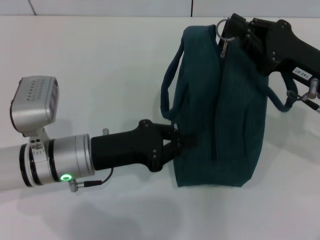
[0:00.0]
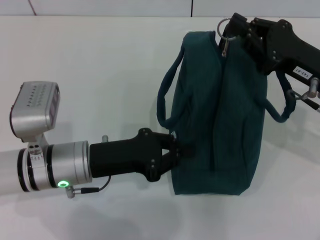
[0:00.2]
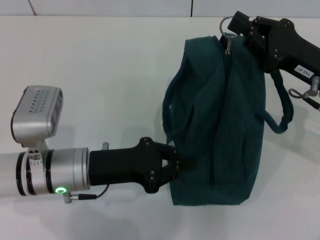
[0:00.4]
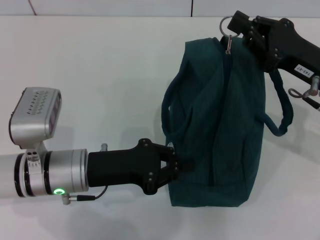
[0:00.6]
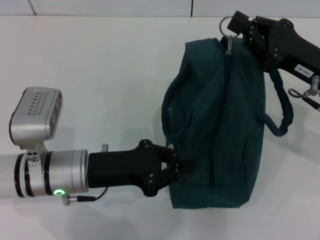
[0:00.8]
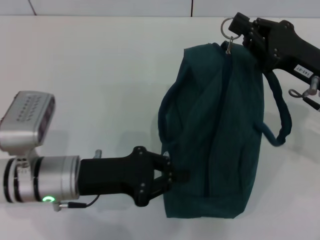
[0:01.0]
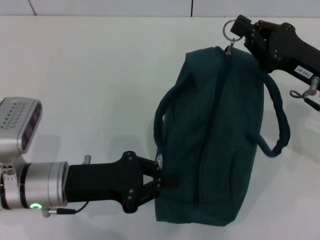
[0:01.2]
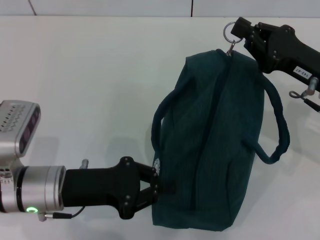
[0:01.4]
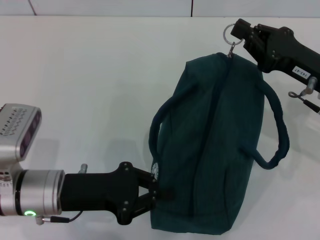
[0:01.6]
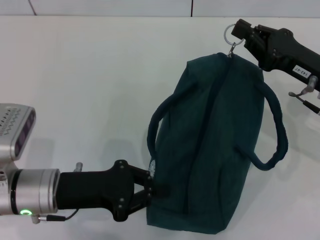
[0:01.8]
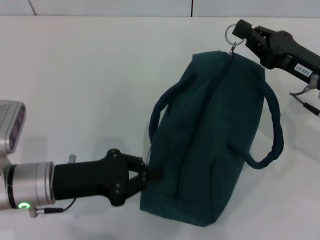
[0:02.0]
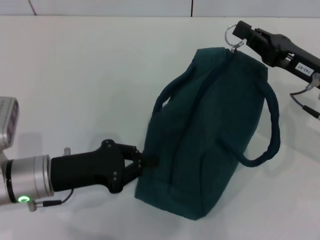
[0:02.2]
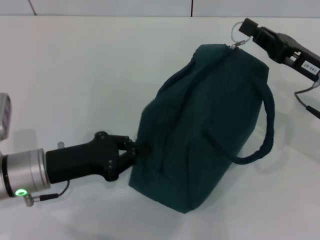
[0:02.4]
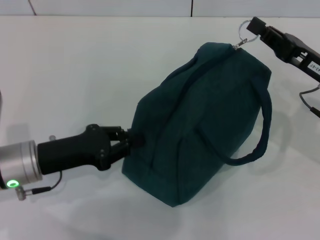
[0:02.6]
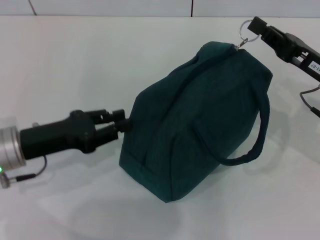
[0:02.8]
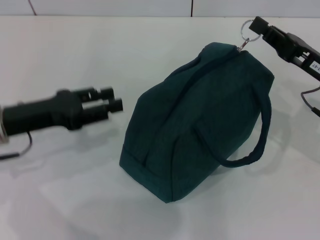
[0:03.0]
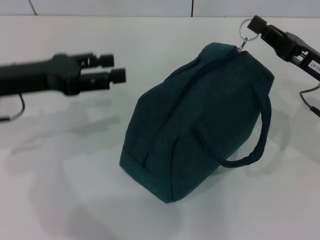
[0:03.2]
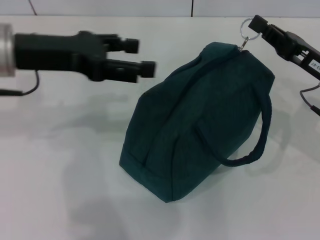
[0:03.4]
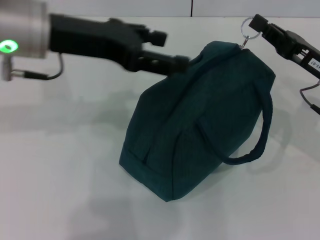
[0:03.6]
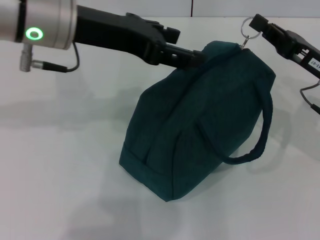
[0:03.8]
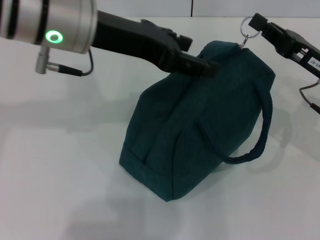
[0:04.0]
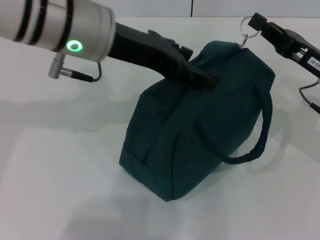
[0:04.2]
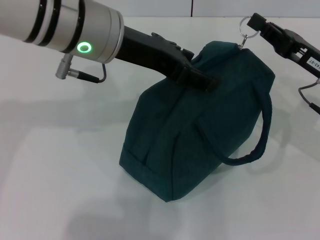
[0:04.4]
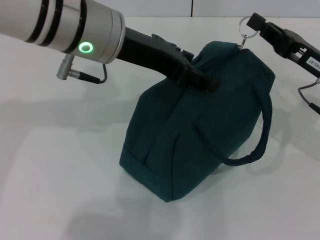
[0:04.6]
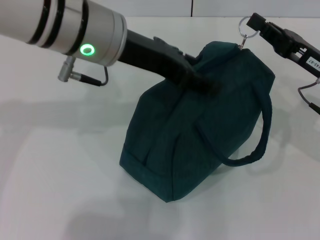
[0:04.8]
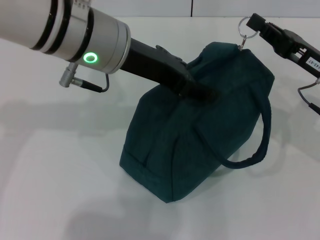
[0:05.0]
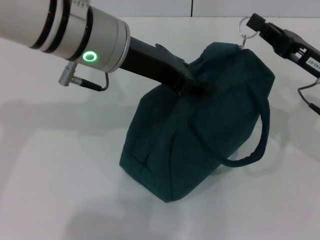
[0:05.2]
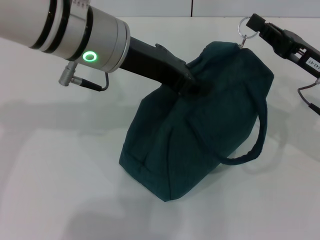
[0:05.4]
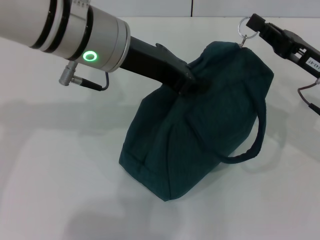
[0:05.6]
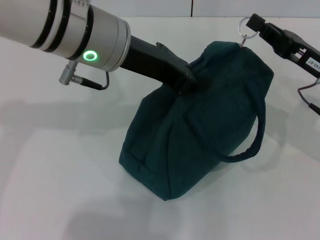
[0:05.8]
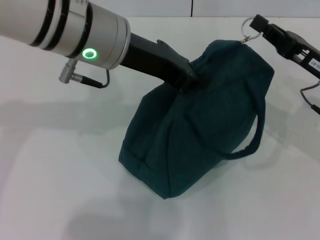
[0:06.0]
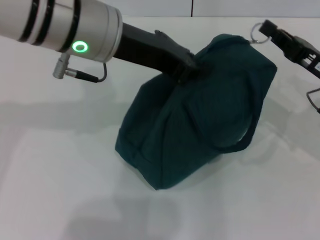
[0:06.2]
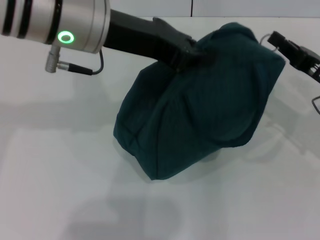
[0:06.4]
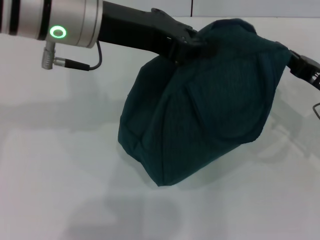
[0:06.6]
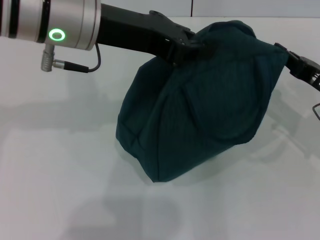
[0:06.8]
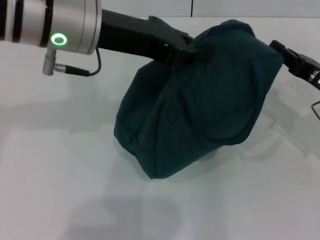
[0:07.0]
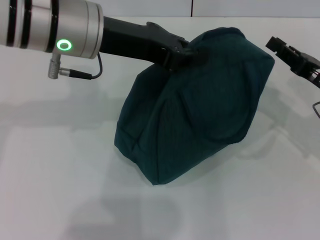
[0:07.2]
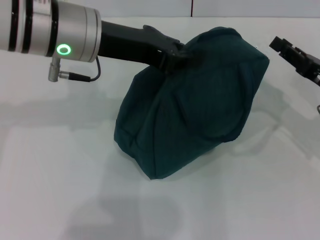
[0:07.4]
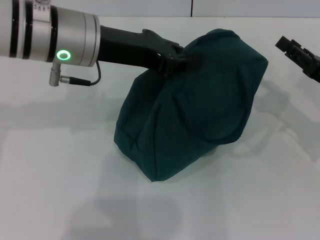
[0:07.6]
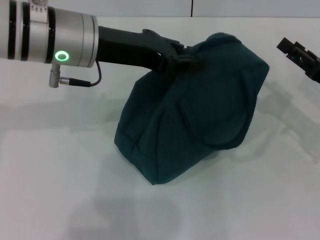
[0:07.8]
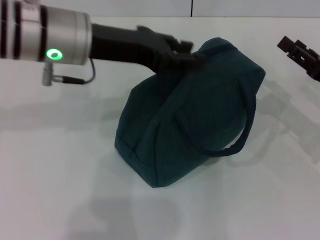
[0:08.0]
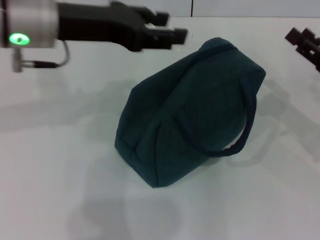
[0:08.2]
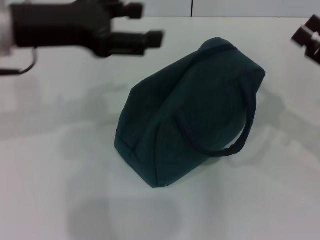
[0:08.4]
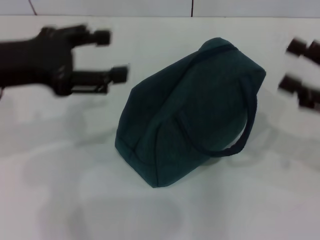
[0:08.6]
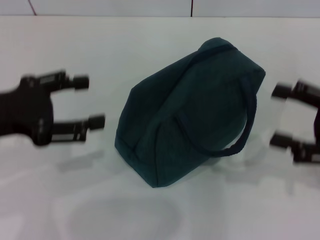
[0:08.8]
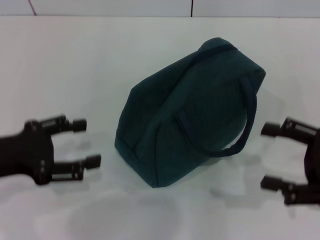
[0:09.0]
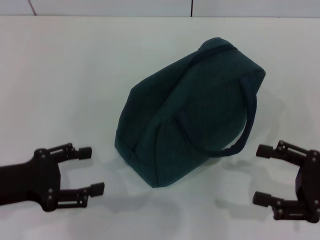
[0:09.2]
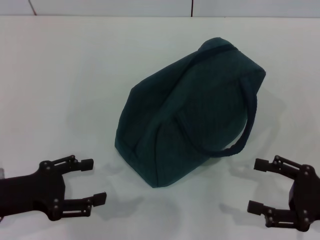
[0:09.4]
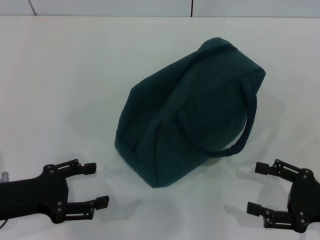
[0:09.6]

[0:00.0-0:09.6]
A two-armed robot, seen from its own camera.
Step, 0:00.0 to 0:07.0: Zip up the lunch bag with your right hand.
Step, 0:07.2 to 0:08.0: Hold the lunch bag with your left hand.
0:00.0 to 0:01.6: The left gripper shifts by approximately 5 cm.
0:01.6 to 0:03.2: The left gripper moves upward, forward and to the left, about 15 cm, and opens.
0:03.2 to 0:04.8: The left gripper goes some 15 cm to the right and upward.
0:04.8 to 0:06.4: The left gripper closes its fingers.
0:06.4 to 0:08.0: The right gripper opens. Meanwhile the left gripper changes place by roughly 5 cm.
0:08.0 to 0:09.6: The left gripper moves downward, backward and to the left, some 25 cm, and opens. Meanwhile the right gripper shifts about 10 cm backward.

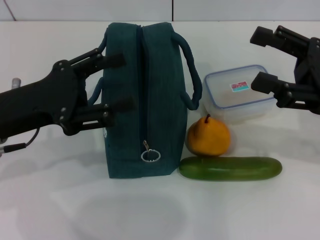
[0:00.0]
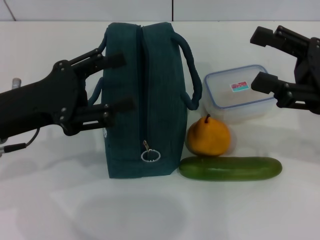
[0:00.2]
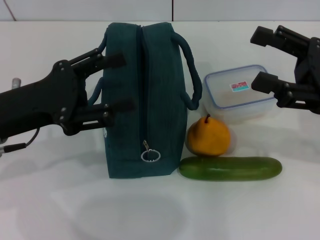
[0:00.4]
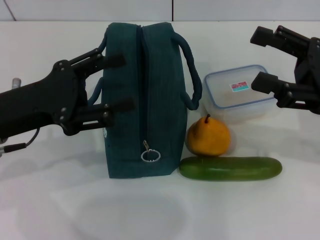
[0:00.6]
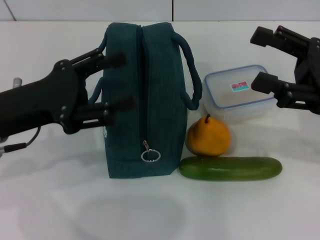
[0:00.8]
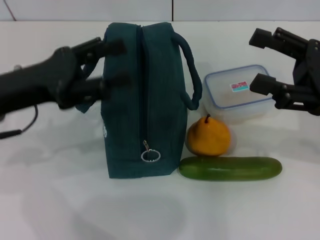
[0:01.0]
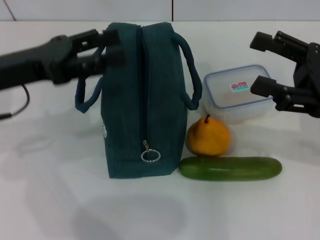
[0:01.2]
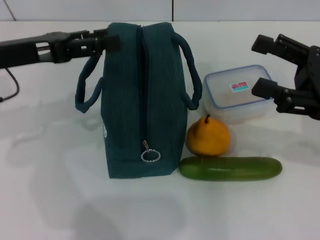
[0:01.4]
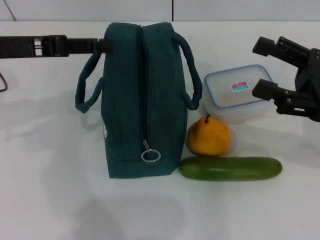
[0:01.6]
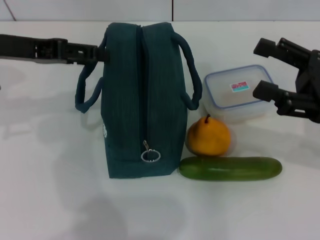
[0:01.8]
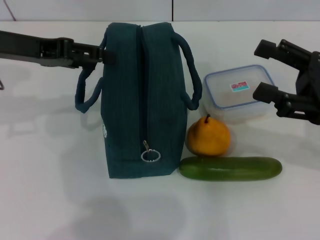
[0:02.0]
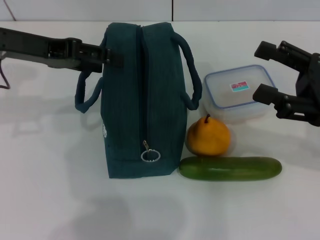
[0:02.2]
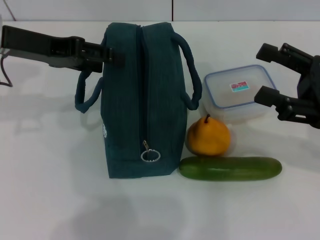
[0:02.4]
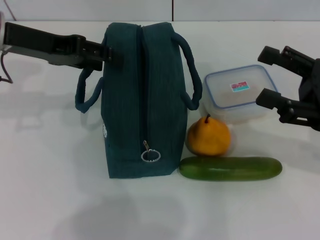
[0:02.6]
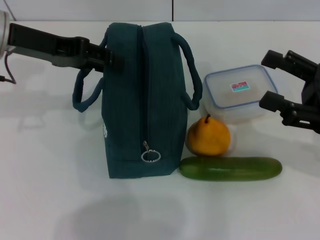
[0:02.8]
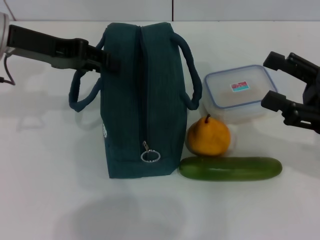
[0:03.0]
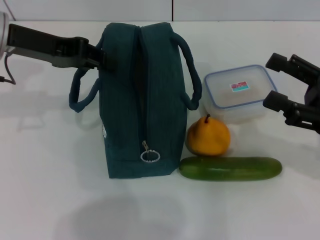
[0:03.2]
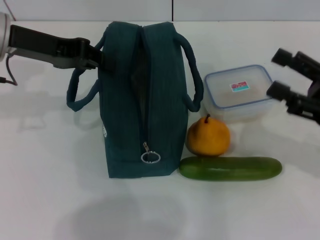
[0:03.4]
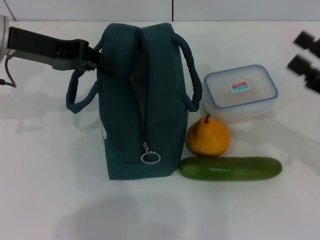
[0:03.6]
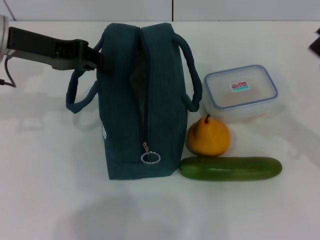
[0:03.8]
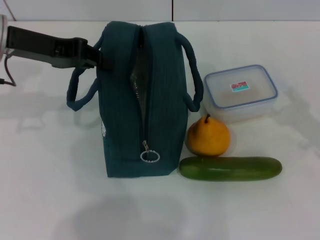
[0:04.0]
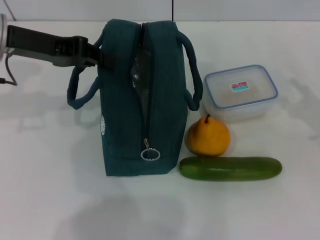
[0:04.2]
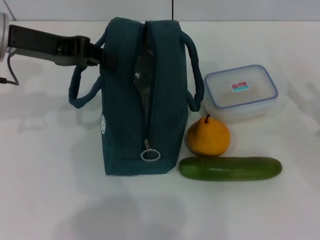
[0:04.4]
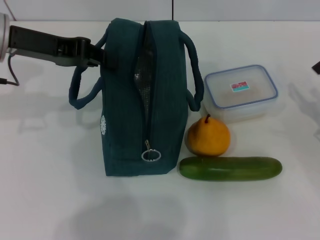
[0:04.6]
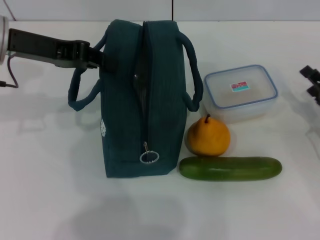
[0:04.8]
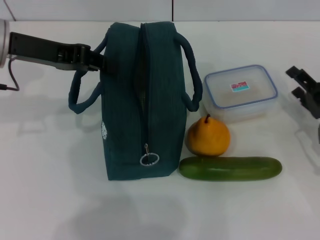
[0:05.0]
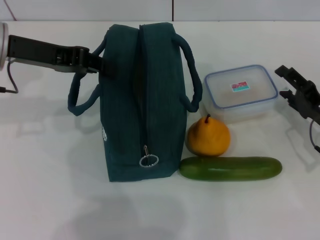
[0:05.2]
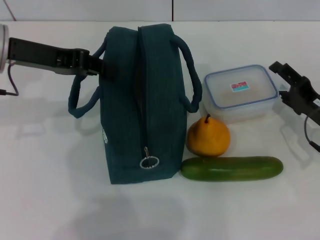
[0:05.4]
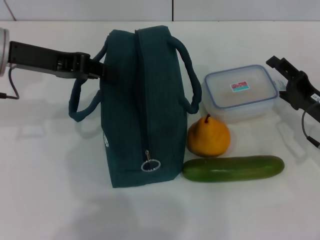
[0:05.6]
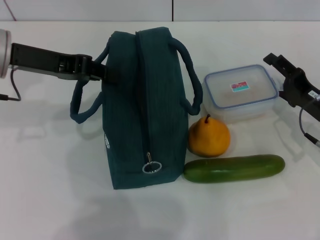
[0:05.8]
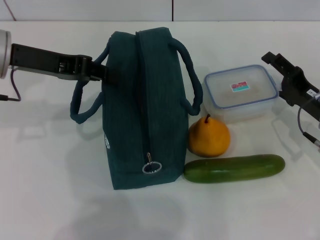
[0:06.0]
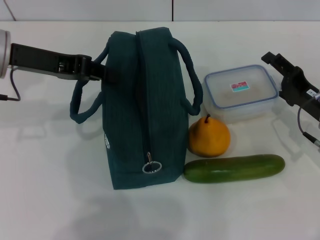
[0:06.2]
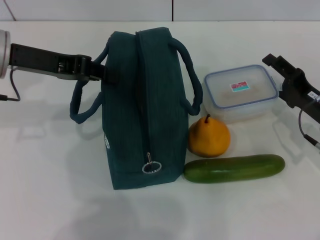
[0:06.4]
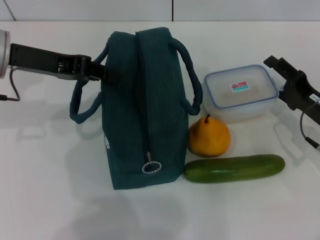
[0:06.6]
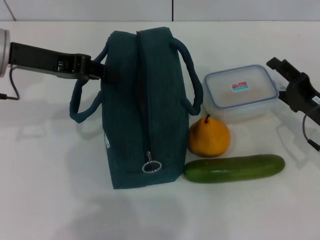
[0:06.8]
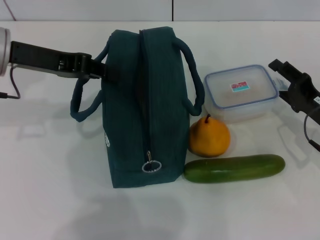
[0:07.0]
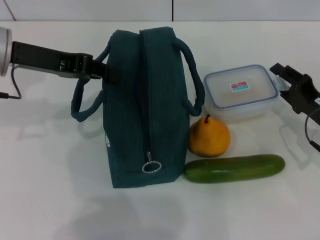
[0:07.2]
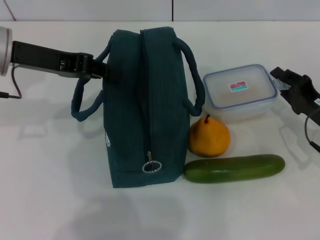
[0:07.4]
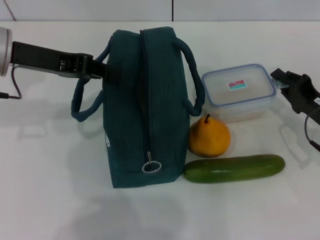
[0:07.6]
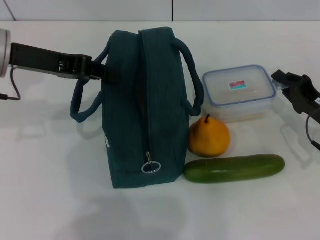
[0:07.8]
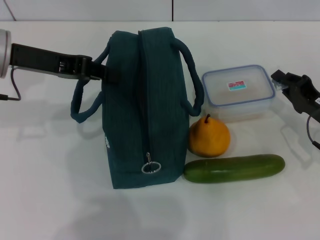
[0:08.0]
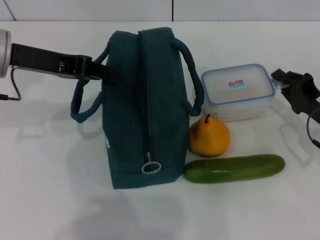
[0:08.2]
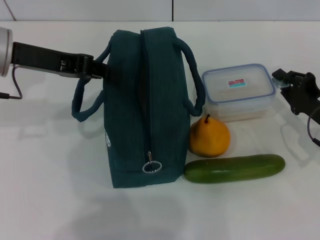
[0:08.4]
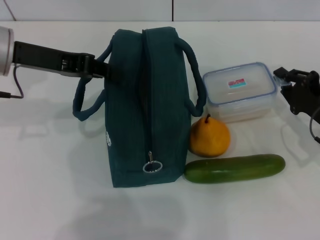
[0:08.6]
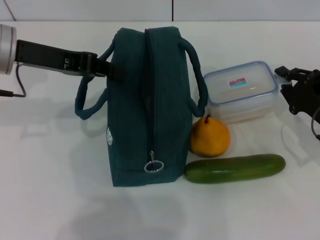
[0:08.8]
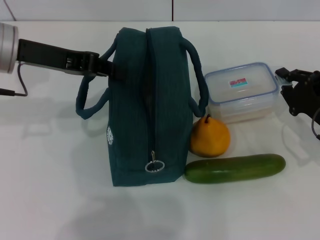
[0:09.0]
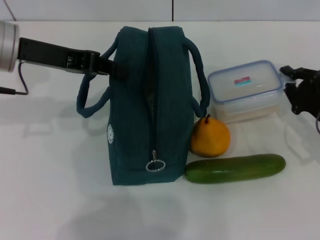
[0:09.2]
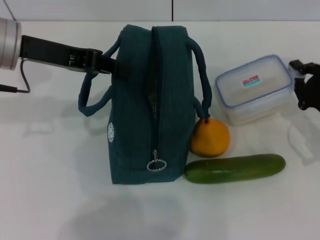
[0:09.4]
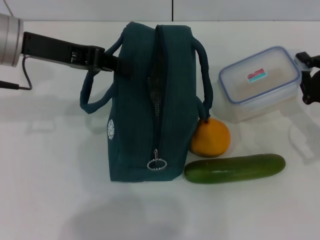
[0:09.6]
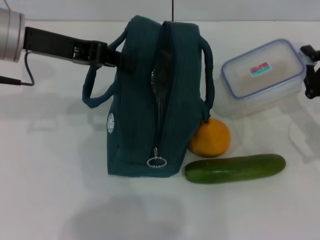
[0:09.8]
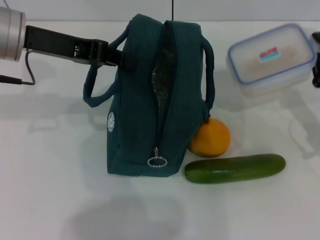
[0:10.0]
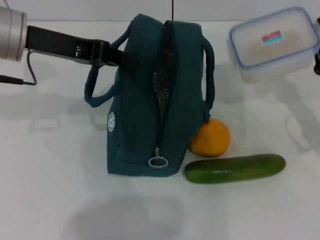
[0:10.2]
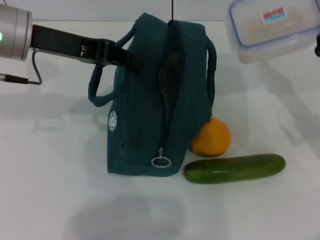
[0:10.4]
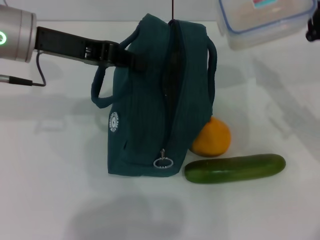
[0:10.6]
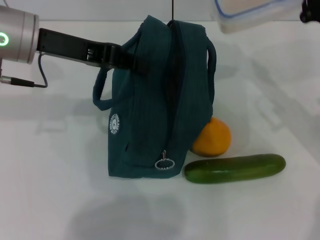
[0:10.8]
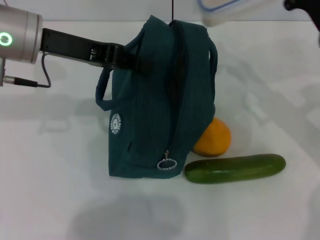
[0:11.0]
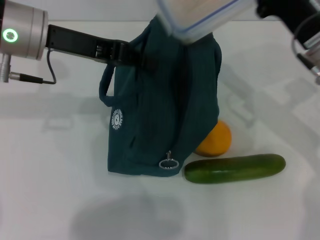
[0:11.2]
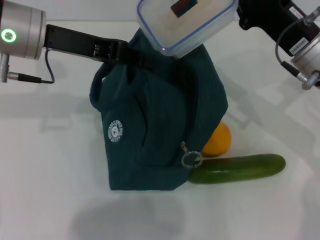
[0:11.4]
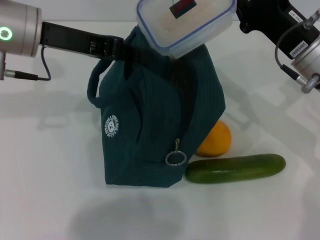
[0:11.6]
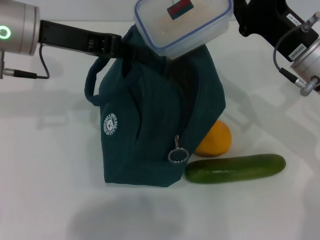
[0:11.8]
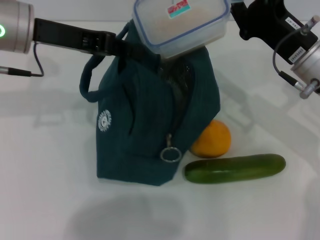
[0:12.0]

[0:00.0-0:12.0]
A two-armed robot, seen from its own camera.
Step, 0:00.0 to 0:04.6: Hold the lunch bag with your left hand.
Step, 0:04.8 to 0:09.0: Pick up the lunch box with your right hand.
0:00.0 to 0:01.6: The left gripper heads forward and upward, covering approximately 10 cm.
0:01.6 to 0:03.0: The grippers make only small movements.
0:03.0 to 0:04.4: The left gripper closes up, while the right gripper goes roughly 10 cm downward and to the right.
0:04.4 to 0:06.0: The right gripper goes some 5 cm to the left.
0:06.0 to 0:07.6: The right gripper closes up.
0:09.0 to 0:10.4: The right gripper travels upward by about 5 cm.
0:10.4 to 0:12.0: The right gripper heads to the left, covering roughly 10 cm.
